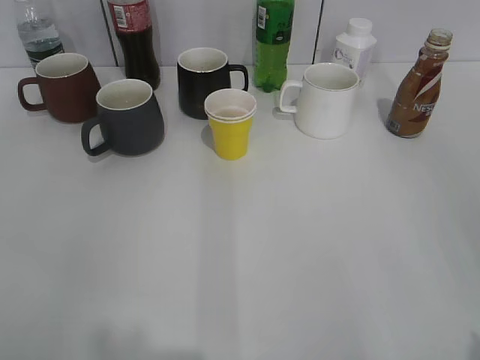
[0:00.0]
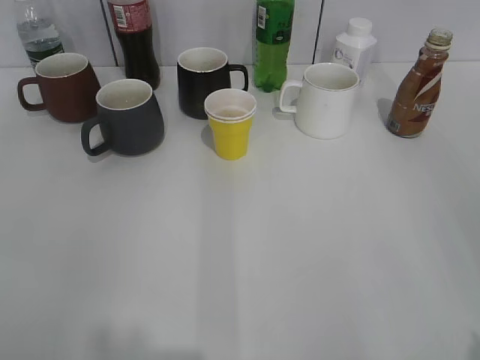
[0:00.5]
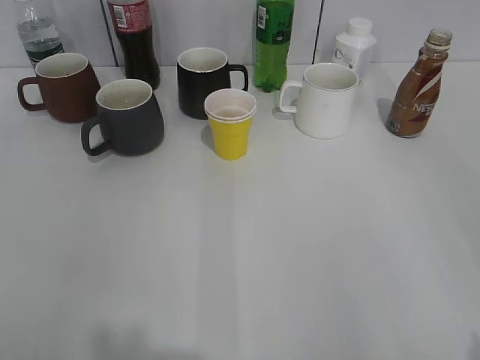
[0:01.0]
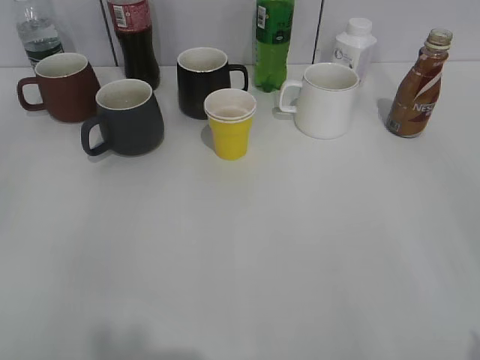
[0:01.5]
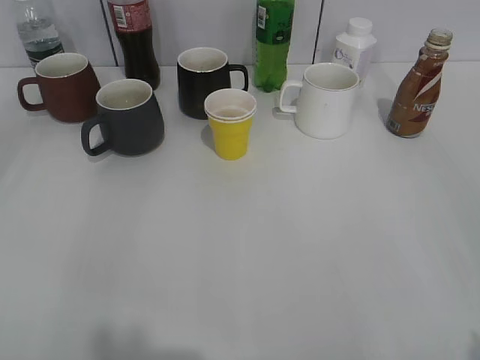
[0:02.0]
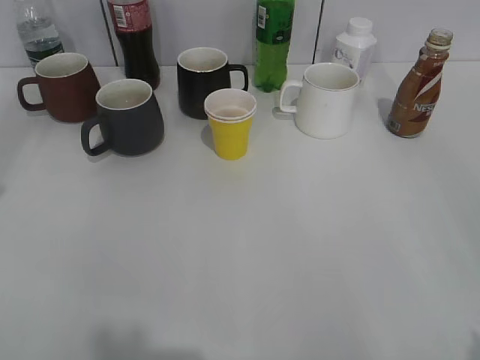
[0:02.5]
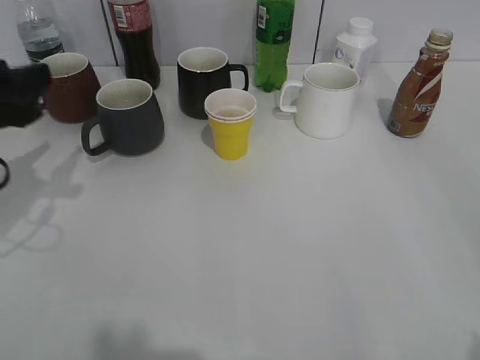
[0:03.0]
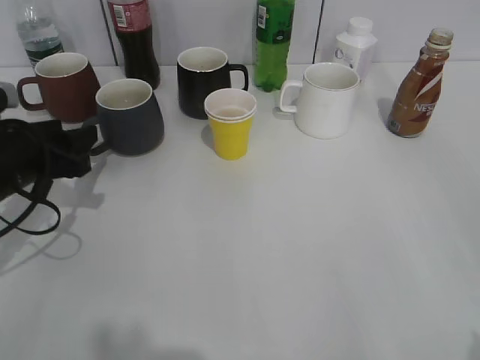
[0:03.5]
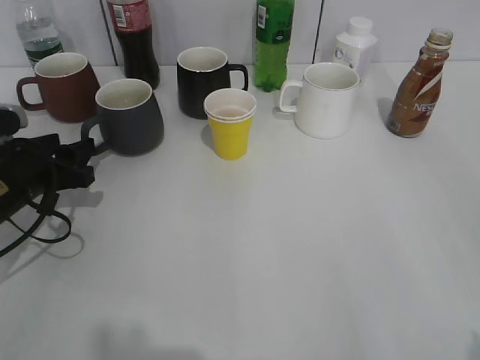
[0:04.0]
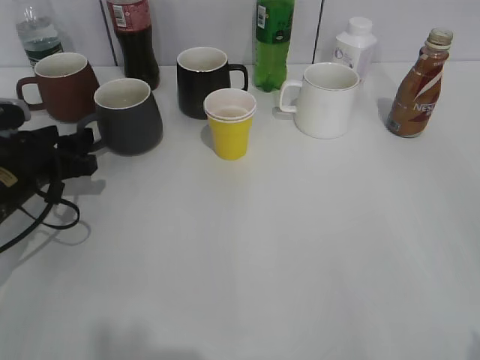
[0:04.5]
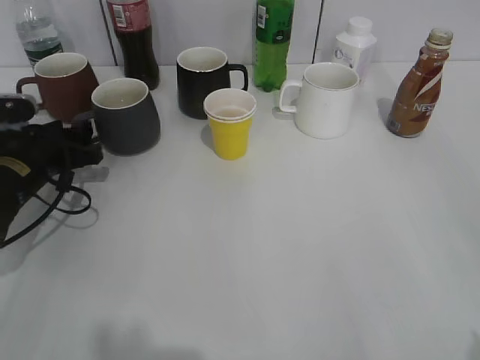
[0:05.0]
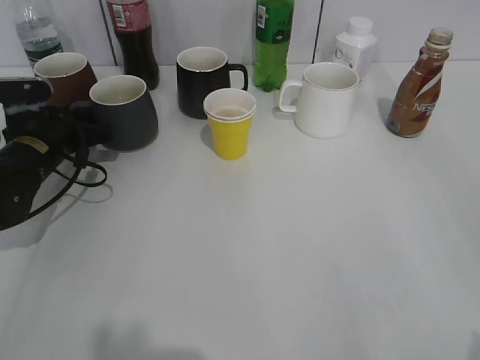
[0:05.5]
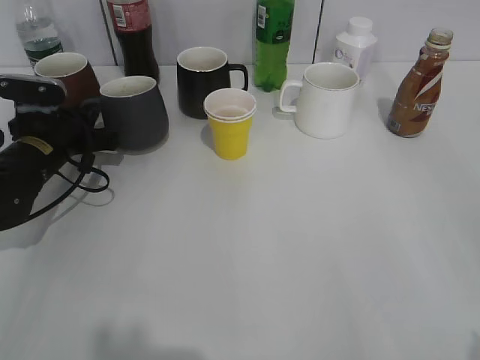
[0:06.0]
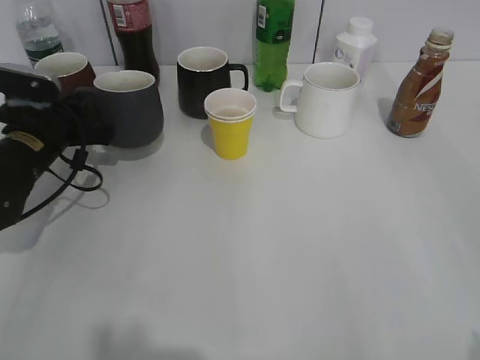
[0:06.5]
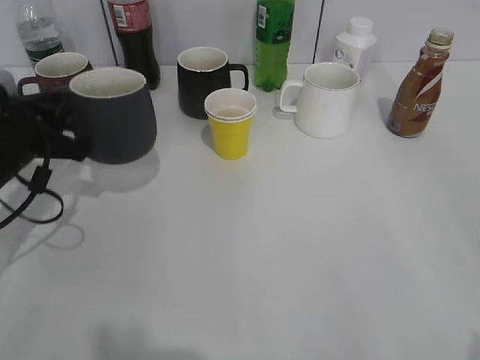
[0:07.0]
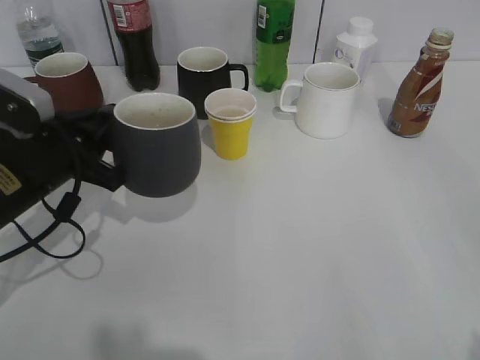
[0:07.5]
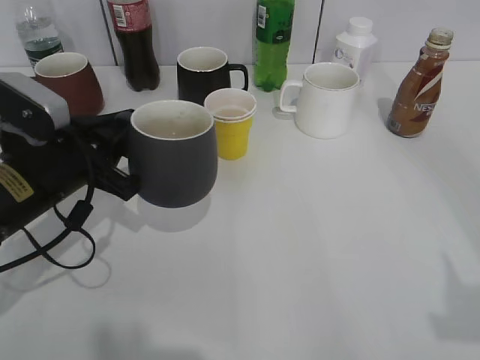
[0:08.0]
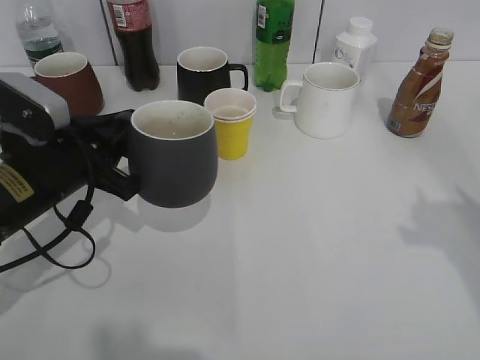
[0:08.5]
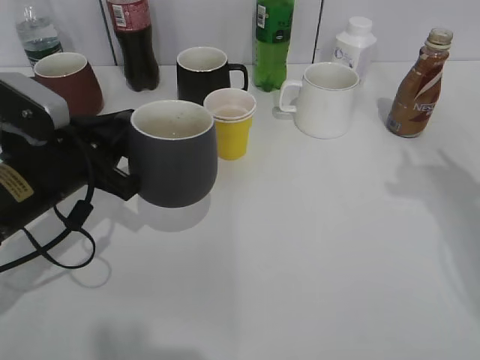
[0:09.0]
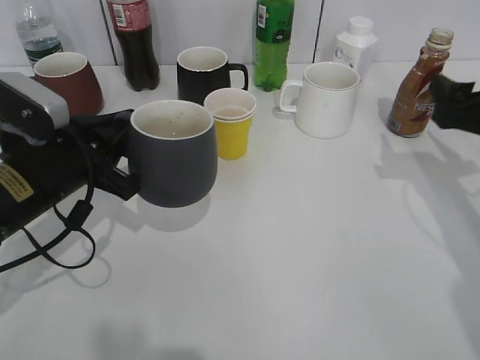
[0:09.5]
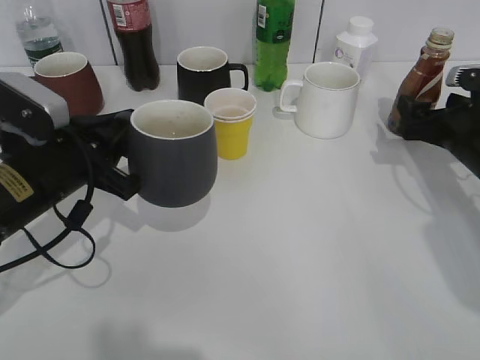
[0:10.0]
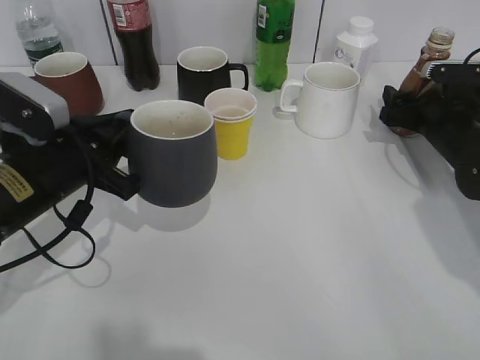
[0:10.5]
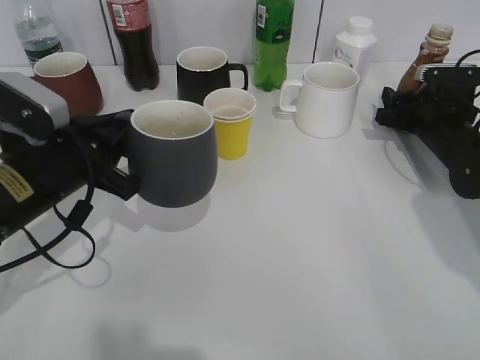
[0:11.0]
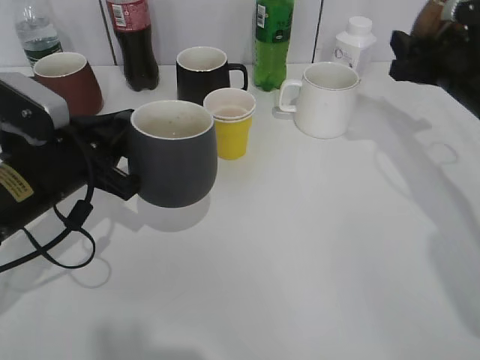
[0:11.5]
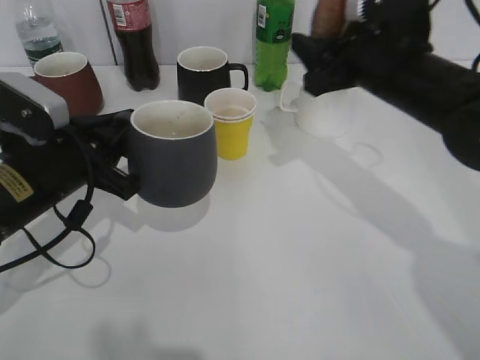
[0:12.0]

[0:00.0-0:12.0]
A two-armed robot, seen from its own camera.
Step, 0:01.5 to 0:05.5: Grasp the grey cup with left gripper.
Step, 0:06.0 to 0:08.5: Lift the grey cup with left gripper.
Step, 0:09.0 to 0:10.5: Grasp the bottle with coffee with right gripper.
0:02.0 to 0:04.0: The left gripper travels downward and forward by roughly 30 cm.
0:04.0 to 0:06.0: The left gripper travels forward by about 10 cm, and closes.
0:06.0 to 0:08.0: The right gripper ends up roughly 5 cm from where it was, and closes up, while the left gripper heads backward, upward and to the right, covering roughly 15 cm.
0:08.0 to 0:10.0: The right gripper is displaced forward and downward by roughly 35 cm, and opens.
0:10.0 to 0:12.0: The right gripper shifts approximately 15 cm to the left and upward, and closes.

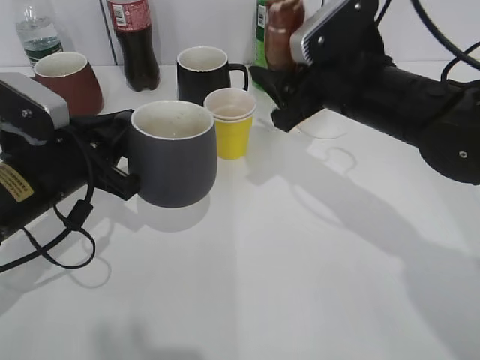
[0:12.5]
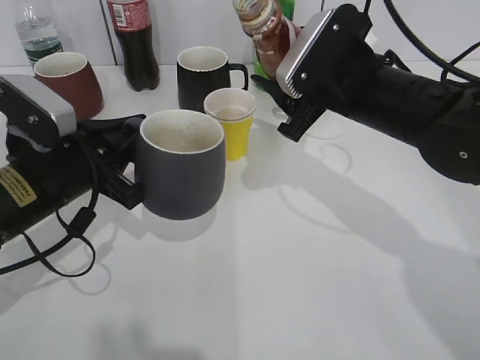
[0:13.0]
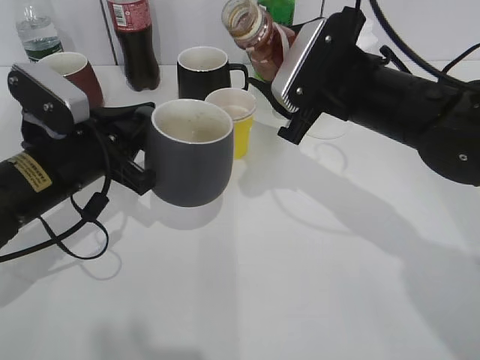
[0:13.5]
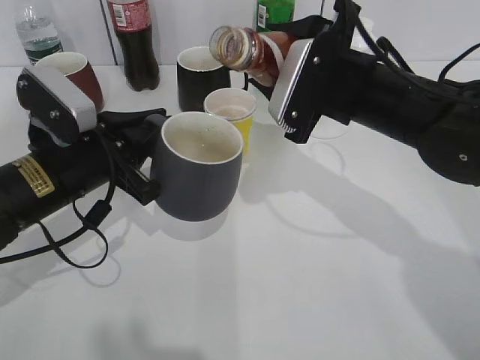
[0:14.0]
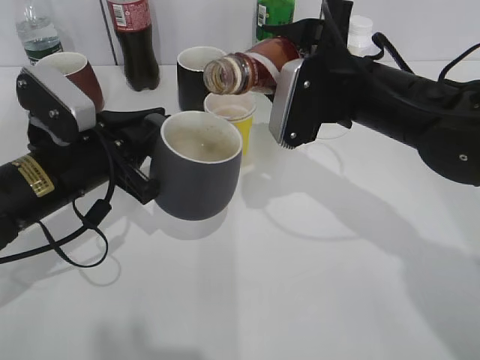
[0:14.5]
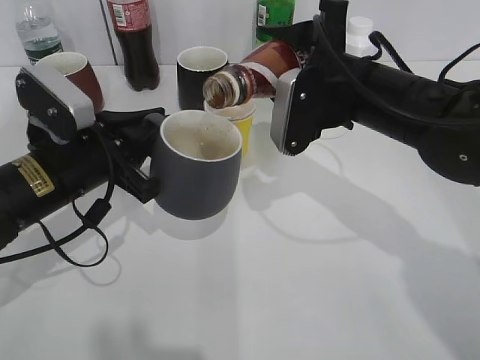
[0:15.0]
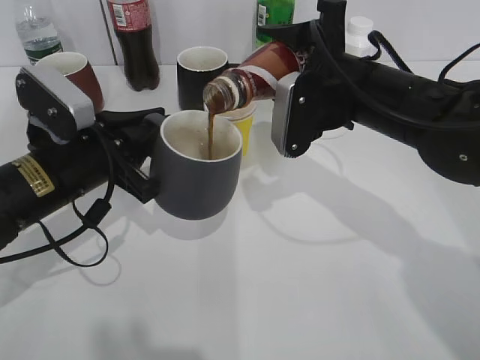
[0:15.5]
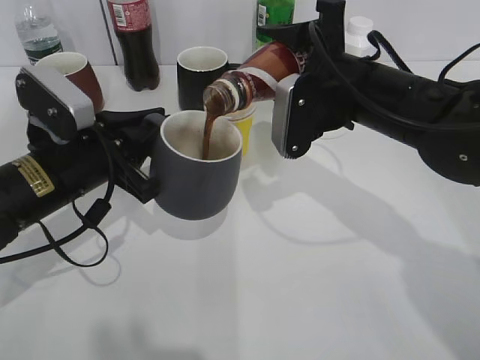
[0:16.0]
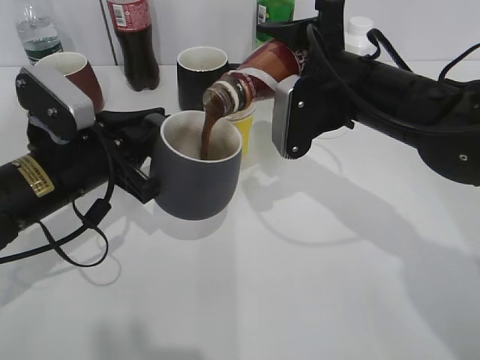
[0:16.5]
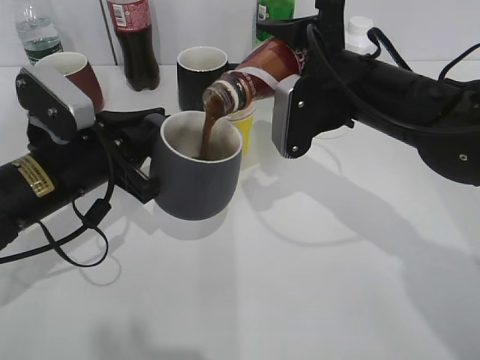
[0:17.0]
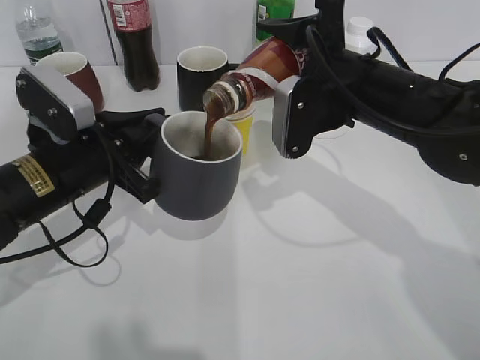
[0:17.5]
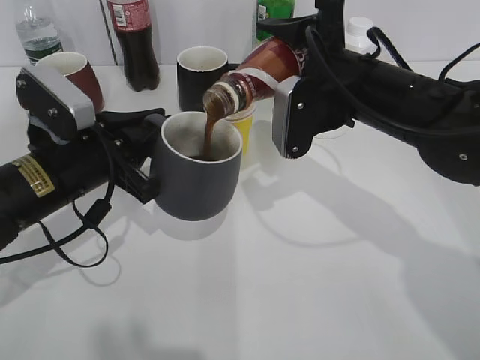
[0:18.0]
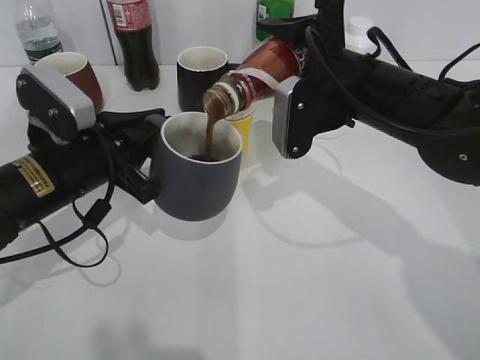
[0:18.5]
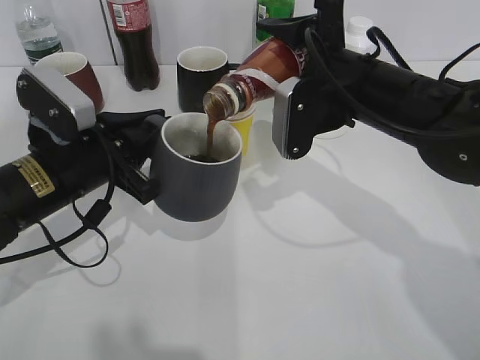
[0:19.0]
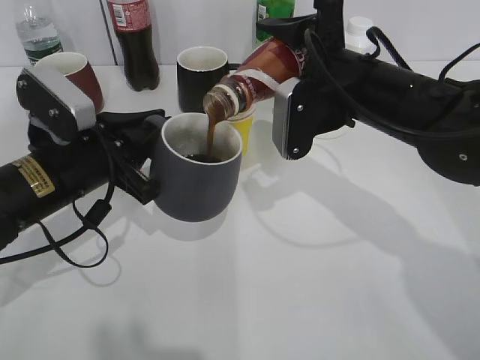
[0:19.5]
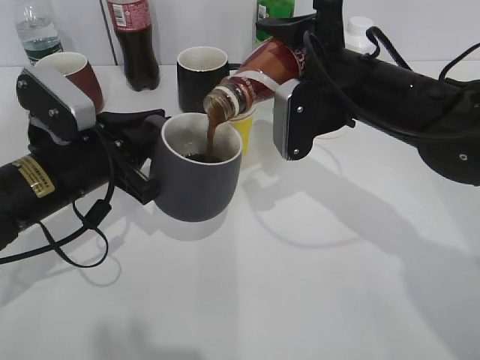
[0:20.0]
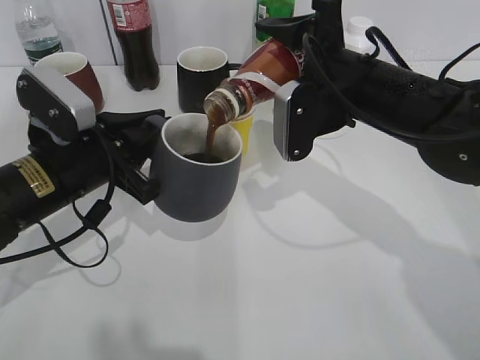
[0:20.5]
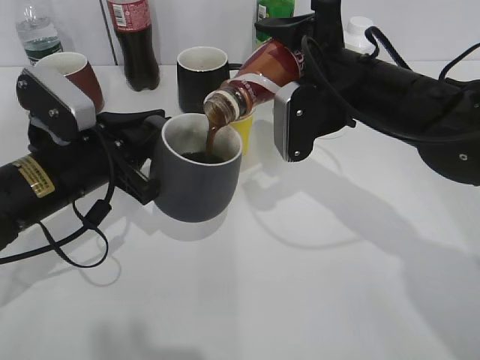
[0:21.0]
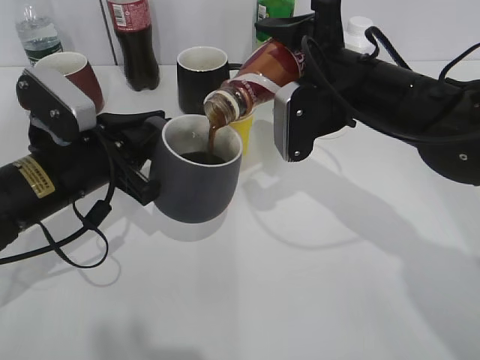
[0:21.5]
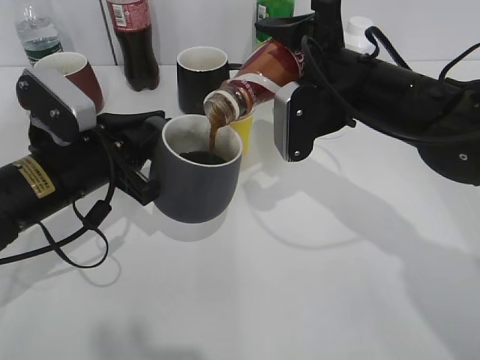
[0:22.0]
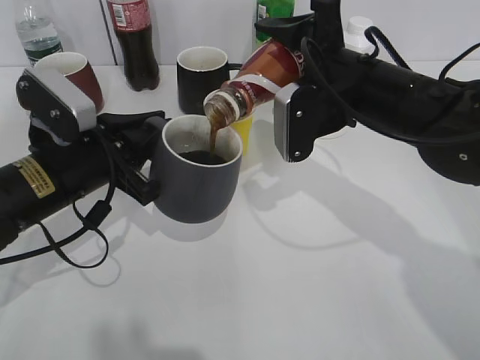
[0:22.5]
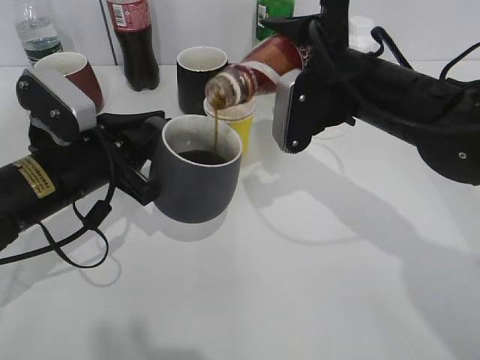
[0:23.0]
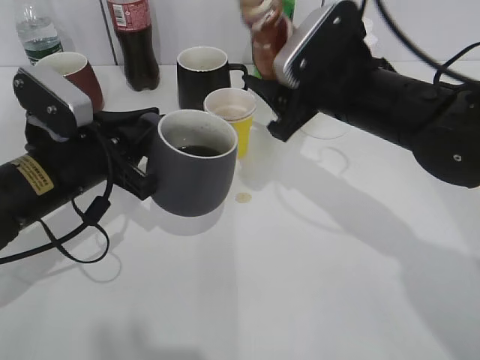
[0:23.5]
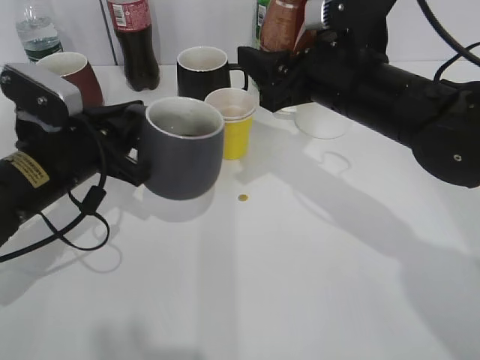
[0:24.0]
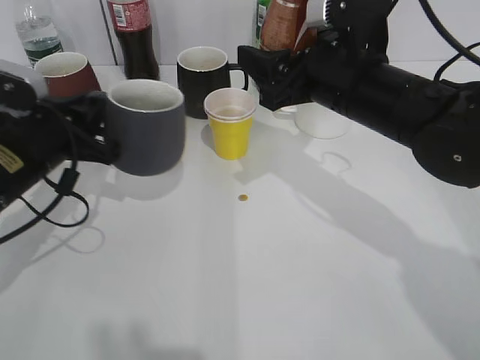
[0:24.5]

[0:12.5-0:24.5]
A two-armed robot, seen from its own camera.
Step, 0:12.5 to 0:23.0: Pour the coffee from bottle to cup with right gripper.
0:14.5 to 0:16.5: The grippers move only a little.
0:16.5 to 0:18.5: Neither gripper changes place.
0:18.5 to 0:20.5: Both grippers stay about where they are.
0:20.5 to 0:22.5: Both grippers stay put.
0:22.5 to 0:24.5: The left gripper changes place by some 5 cm.

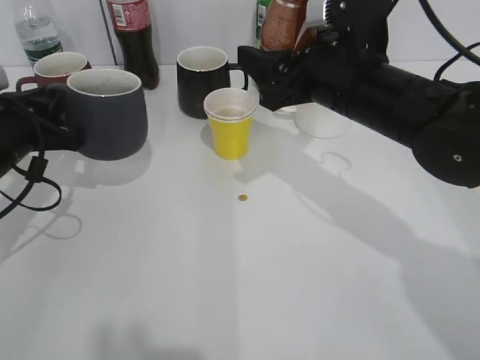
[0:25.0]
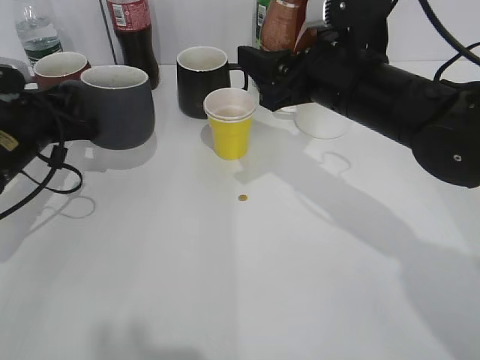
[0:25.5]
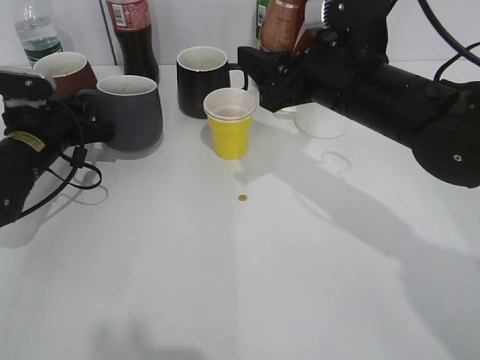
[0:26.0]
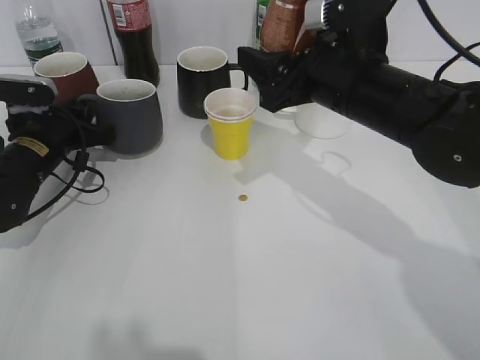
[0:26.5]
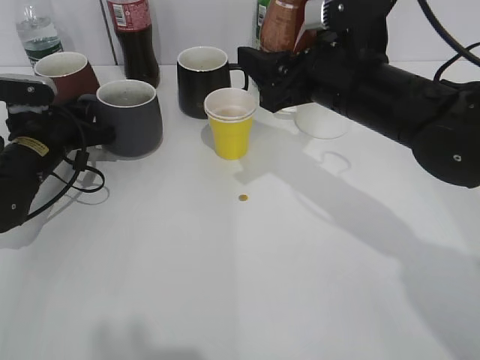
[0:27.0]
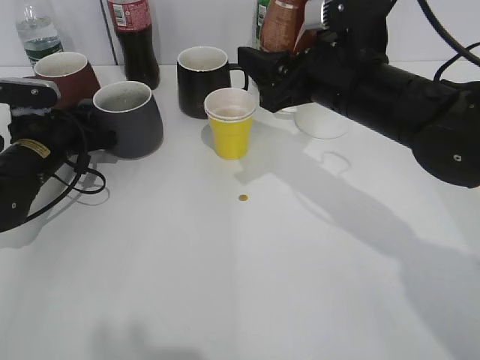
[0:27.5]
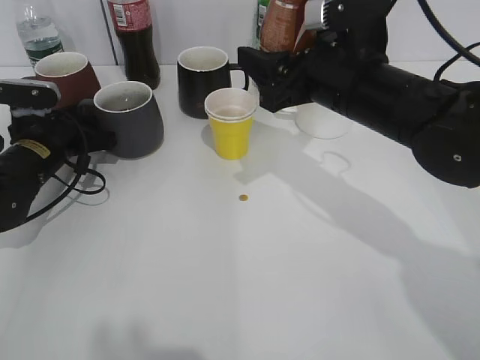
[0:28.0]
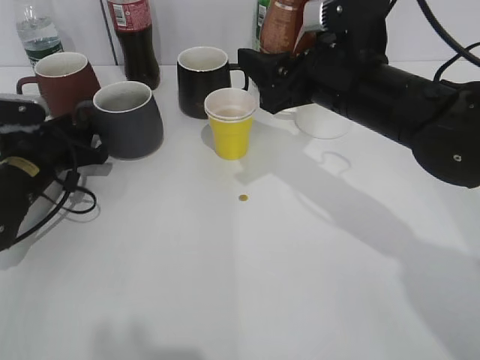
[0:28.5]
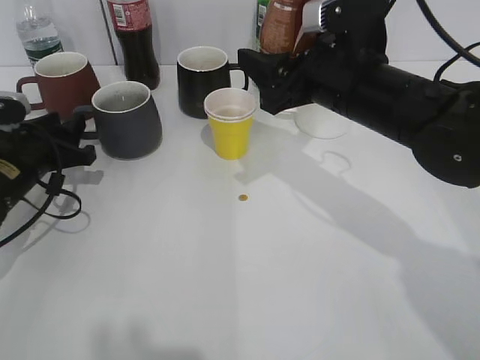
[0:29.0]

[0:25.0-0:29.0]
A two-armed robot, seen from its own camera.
Step, 0:25.0 to 0:28.5: Place the grey cup on the table with left gripper.
0:25.0 to 0:27.0: The left gripper travels forward and downward by about 10 cm.
0:27.0 to 0:29.0: The left gripper ends up some 5 cm from where it was, and opens its fingers.
